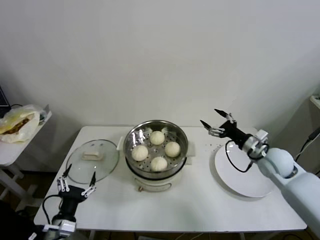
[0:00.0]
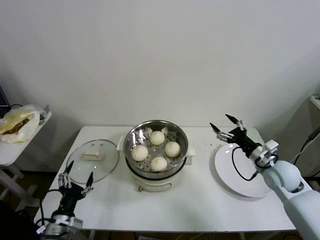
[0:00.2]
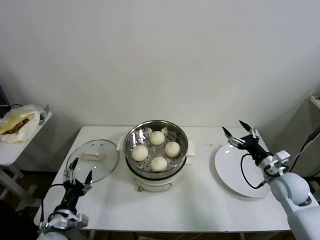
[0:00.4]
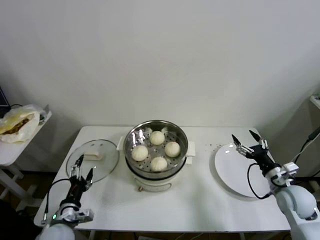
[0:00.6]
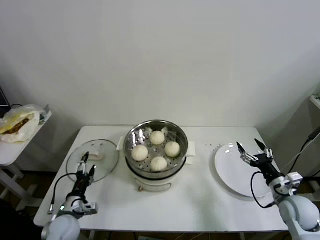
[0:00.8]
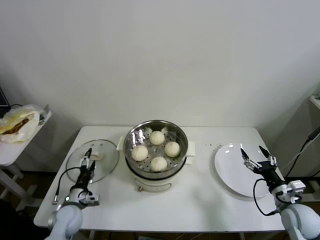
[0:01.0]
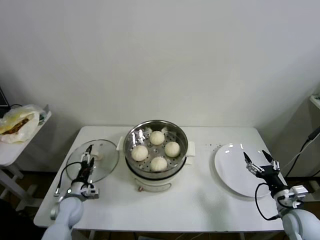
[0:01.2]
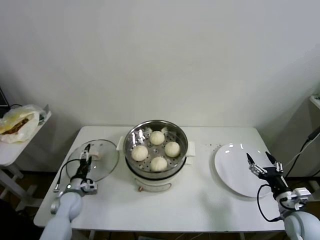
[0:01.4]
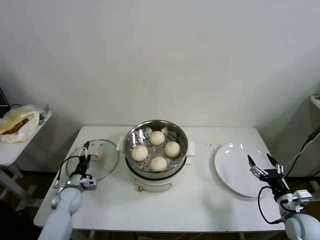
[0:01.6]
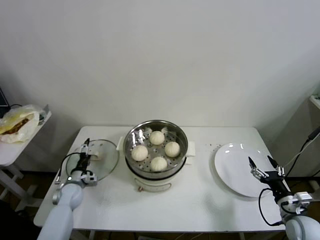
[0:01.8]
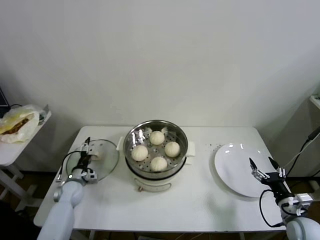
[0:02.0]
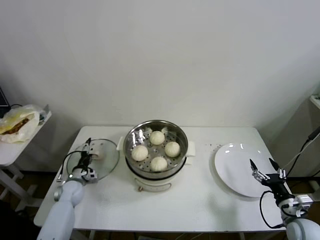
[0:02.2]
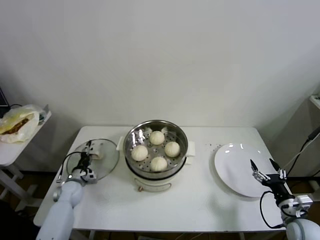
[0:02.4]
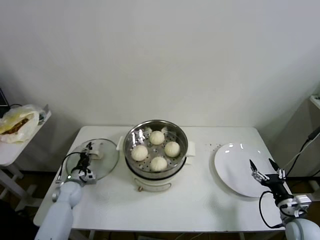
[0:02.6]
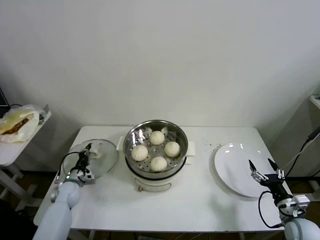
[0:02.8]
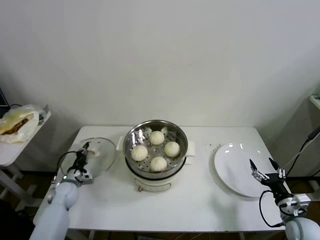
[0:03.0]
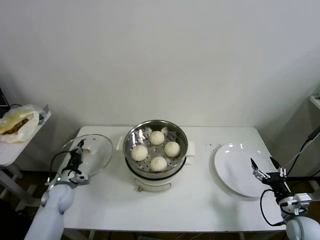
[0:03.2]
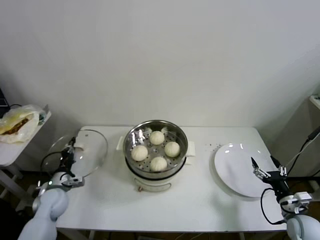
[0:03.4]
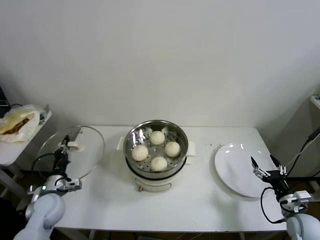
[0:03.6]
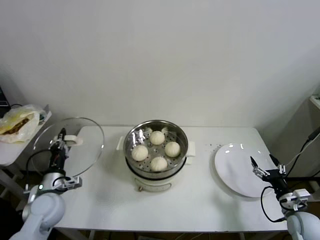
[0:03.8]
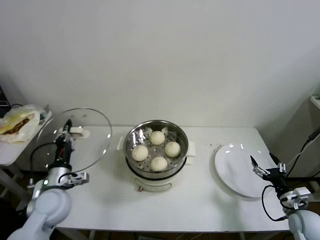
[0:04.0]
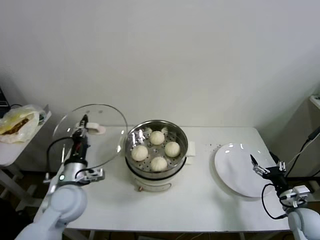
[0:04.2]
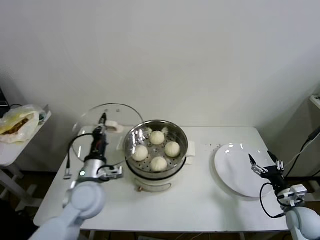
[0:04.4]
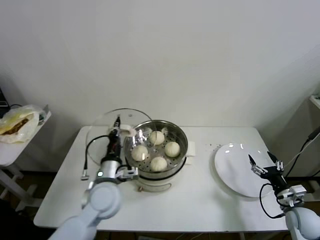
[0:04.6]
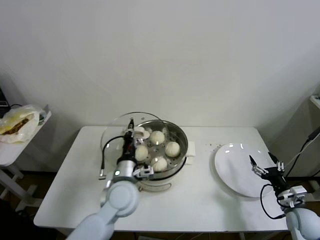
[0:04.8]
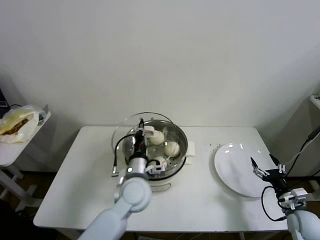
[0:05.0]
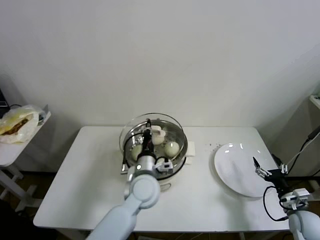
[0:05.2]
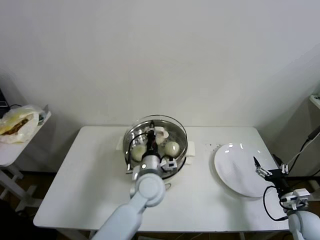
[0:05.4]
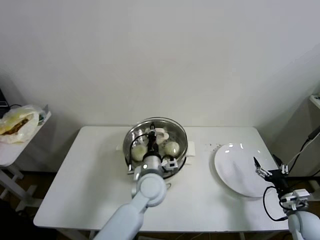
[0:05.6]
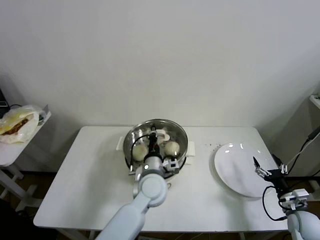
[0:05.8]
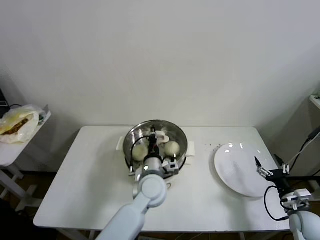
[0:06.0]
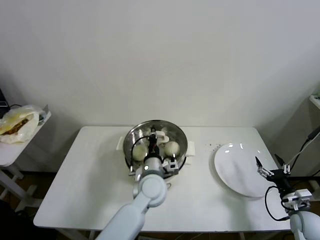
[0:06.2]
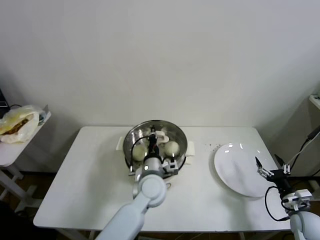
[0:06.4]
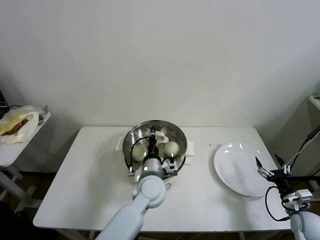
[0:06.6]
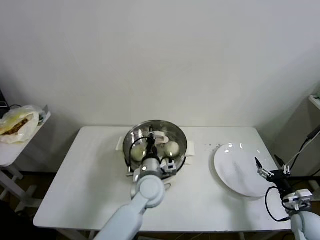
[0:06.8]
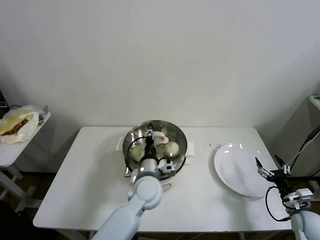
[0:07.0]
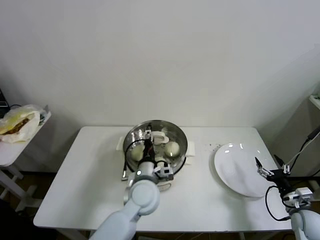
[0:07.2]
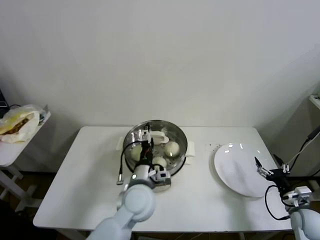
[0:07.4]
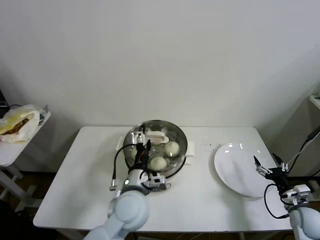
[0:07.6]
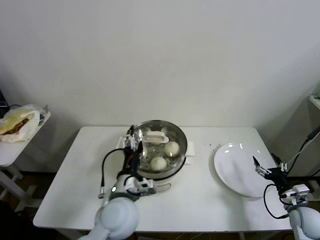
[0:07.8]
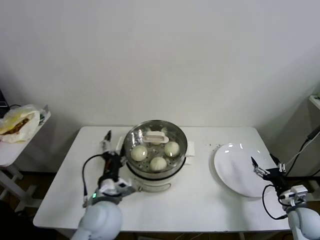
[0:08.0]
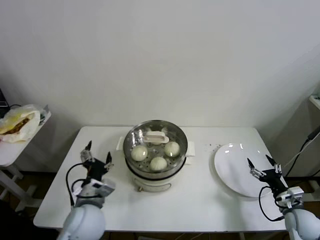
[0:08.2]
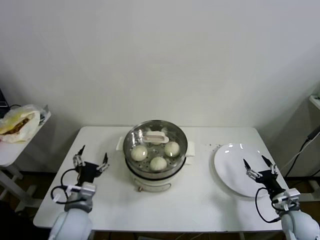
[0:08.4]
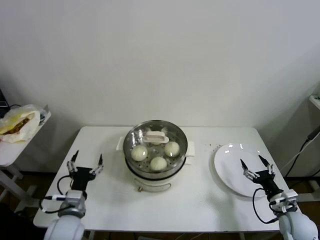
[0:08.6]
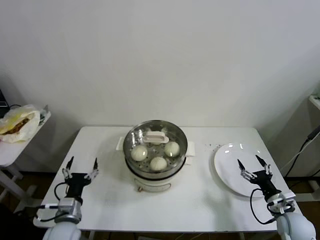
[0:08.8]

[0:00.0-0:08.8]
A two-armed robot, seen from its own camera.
Step, 0:00.0 to 0:02.8: Grasp the pot lid with left gripper.
Step, 0:03.0 to 0:06.6: Place the pot lid on the steamer with left gripper.
0:00.0 to 0:01.4: The right gripper moves backward and downward, some 20 cm; the left gripper heads forward and downward, covering approximately 20 cm.
0:01.4 to 0:03.0: The left gripper ends up some 5 cm from where it was, and closes up.
0:03.0 to 0:04.4: The left gripper is displaced upward, to the right and backward by roughly 30 cm.
0:04.4 to 0:05.8: The left gripper travels to the right by about 20 cm.
0:05.8 to 0:07.4: The left gripper opens up.
0:07.4 to 0:08.8: The left gripper is displaced to the left by about 25 cm.

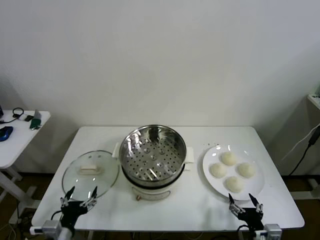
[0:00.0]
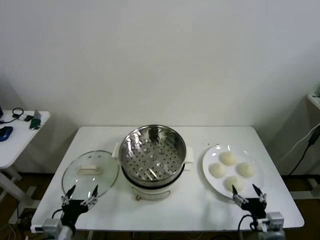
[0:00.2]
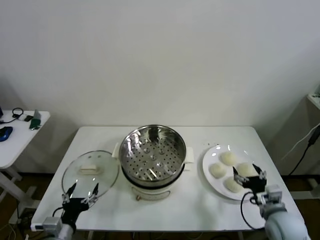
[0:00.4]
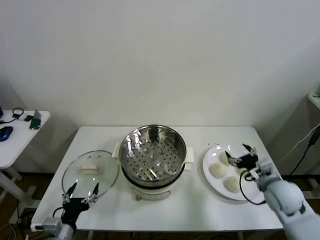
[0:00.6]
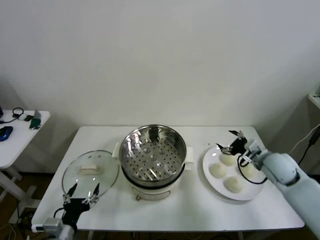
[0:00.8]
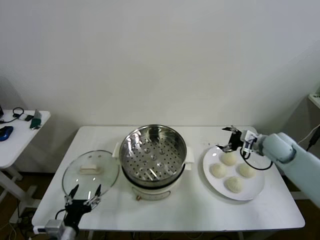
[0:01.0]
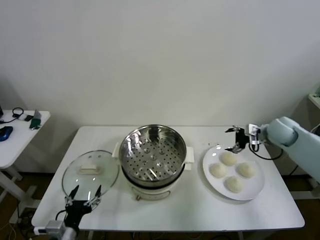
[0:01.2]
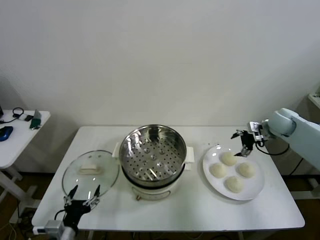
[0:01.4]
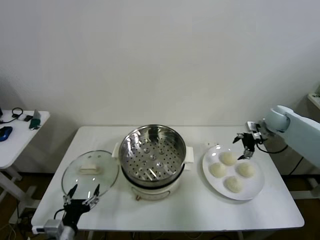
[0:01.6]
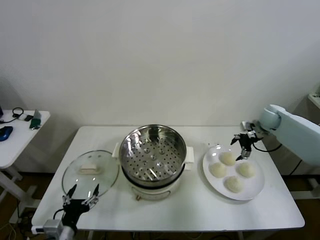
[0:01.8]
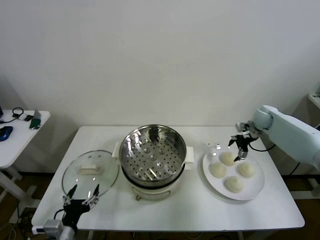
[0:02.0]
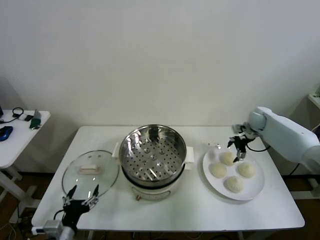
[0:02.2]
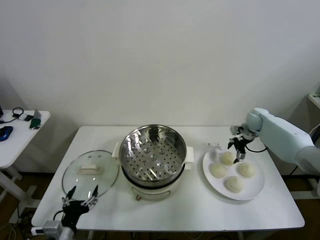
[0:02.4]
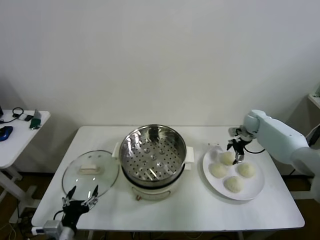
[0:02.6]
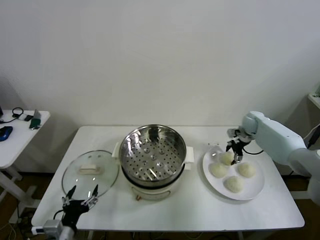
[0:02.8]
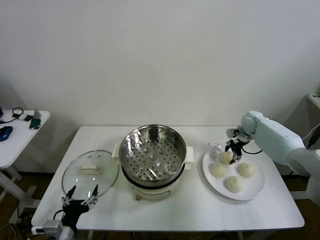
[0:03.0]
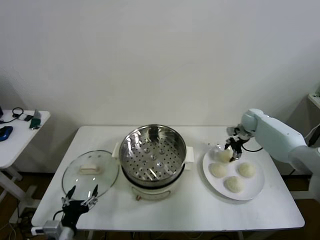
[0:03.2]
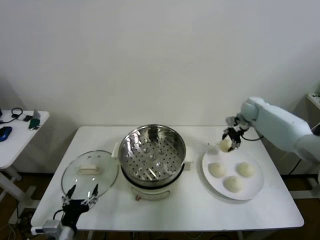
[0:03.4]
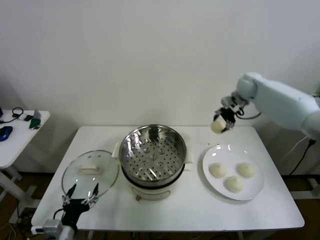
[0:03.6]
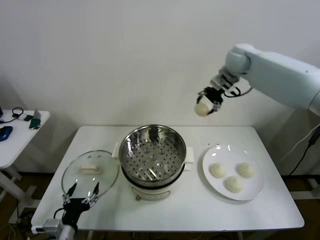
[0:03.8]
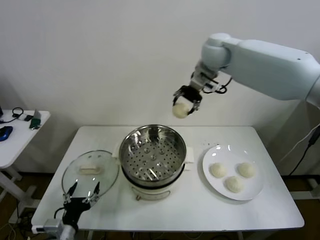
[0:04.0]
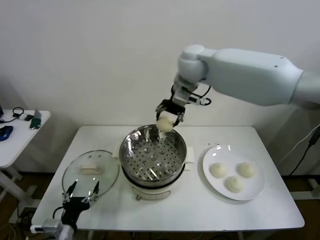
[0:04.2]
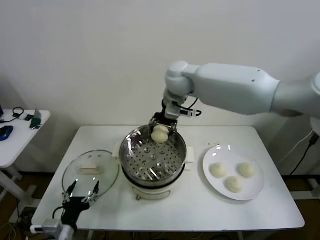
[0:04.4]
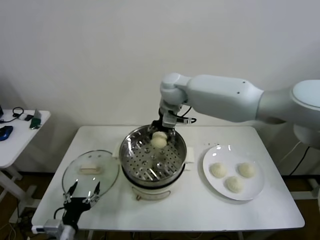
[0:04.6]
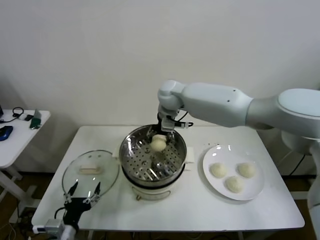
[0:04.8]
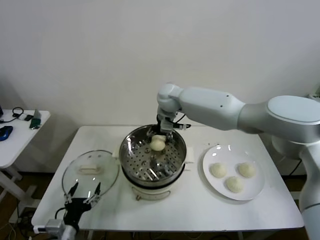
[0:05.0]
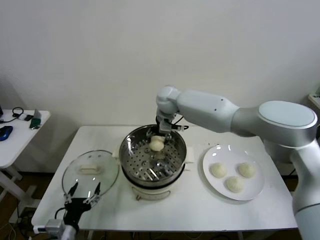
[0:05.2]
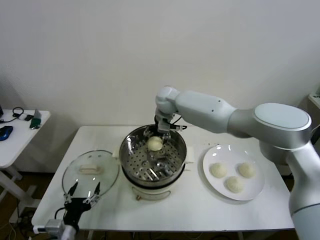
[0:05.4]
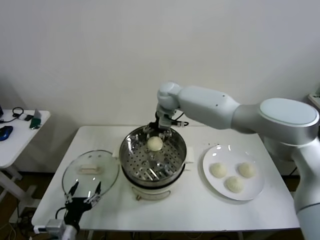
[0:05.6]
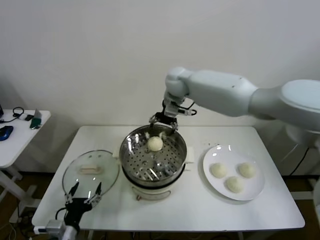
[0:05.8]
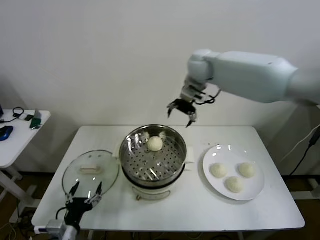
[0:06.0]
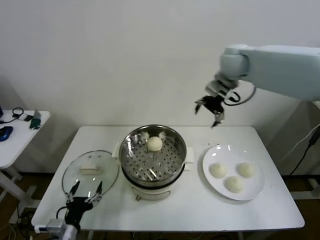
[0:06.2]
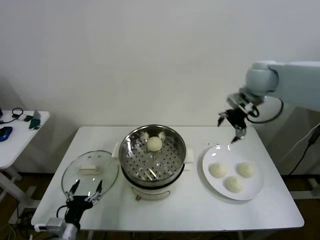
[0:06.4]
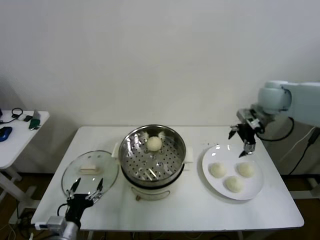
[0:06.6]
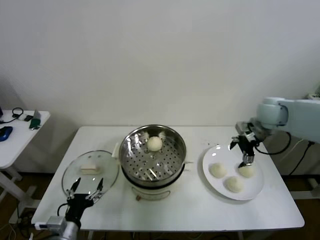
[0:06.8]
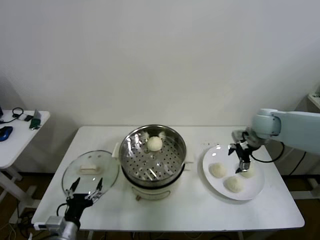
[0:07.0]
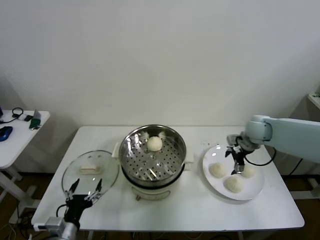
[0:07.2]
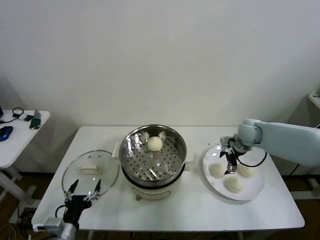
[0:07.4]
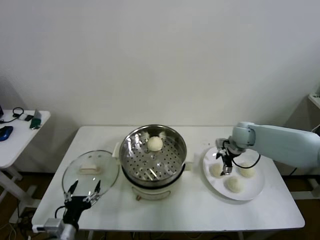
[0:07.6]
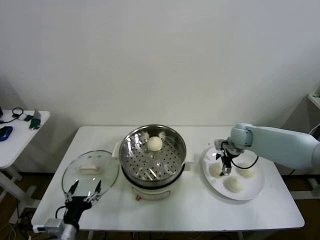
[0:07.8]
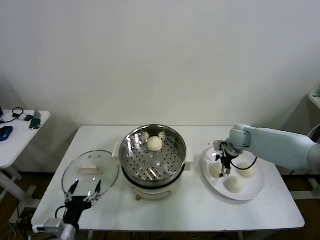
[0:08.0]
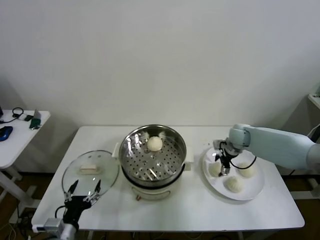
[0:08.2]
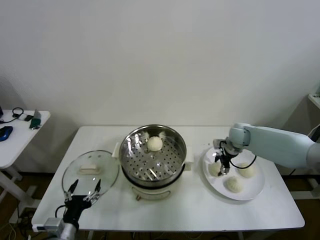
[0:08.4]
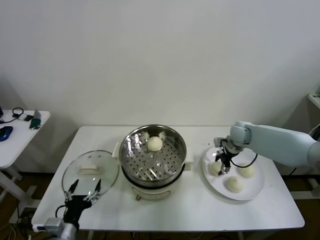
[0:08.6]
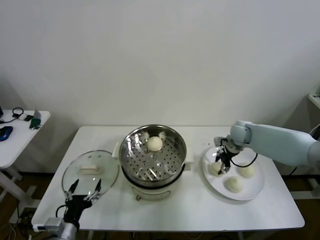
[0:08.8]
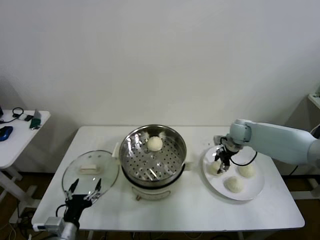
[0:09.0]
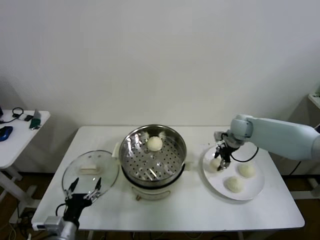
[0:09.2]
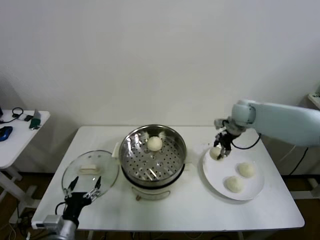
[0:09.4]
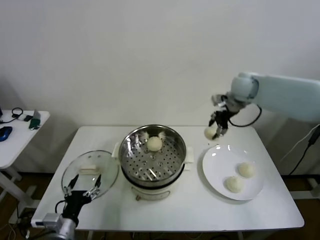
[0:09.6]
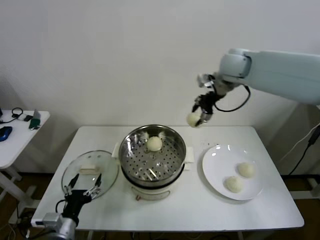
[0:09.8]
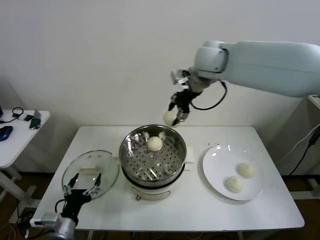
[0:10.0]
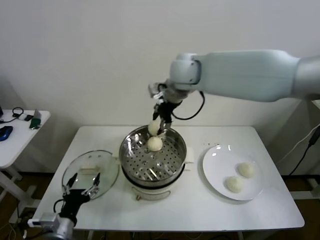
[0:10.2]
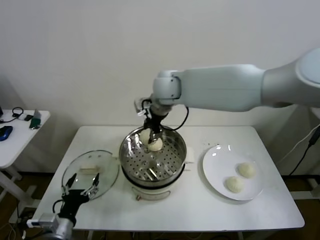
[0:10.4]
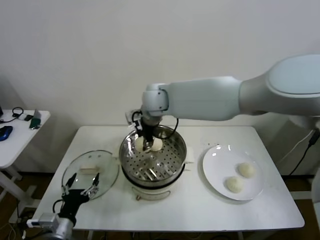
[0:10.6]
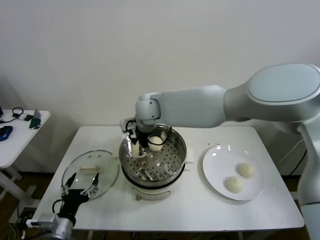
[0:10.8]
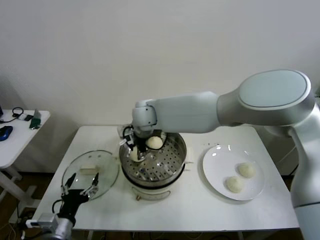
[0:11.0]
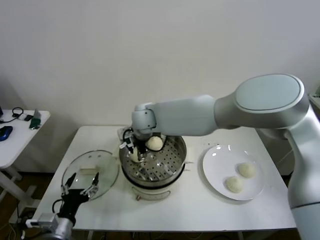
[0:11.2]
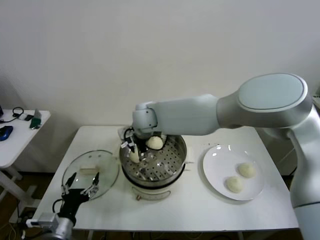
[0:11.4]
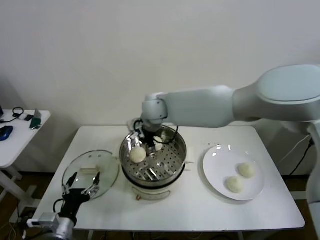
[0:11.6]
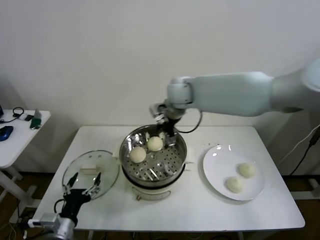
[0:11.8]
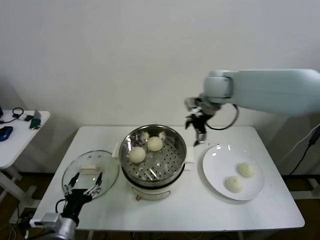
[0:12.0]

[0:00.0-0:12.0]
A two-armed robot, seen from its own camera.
Step, 0:00.0 to 0:03.0: Grasp the baozi in the plate with right gripper.
Step, 0:03.2 to 0:05.4: Place the baozi on the steamer with right gripper.
Step, 0:05.6 to 0:08.2: Grasp the baozi in the plate with right gripper.
Step, 0:08.4 to 0:11.2: Place the baozi on the steamer with right gripper.
0:01.6 to 0:03.0: The right gripper shifts approximately 10 cm downward and forward, and closes its fingers.
0:03.0 to 0:04.4: The right gripper travels to the left and upward by some 40 cm.
0:04.4 to 0:06.0: The right gripper is displaced to the right by about 10 cm, reaches approximately 10 cm downward, then returns, and opens.
0:06.0 to 0:07.6: The right gripper goes about 30 cm downward and to the right.
0:07.6 to 0:09.0: The right gripper closes its fingers.
0:09.0 to 0:10.4: The right gripper moves to the left and upward, some 35 cm.
0:10.4 to 0:12.0: The right gripper goes about 20 cm to the right, and opens its fingers.

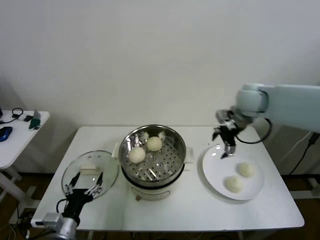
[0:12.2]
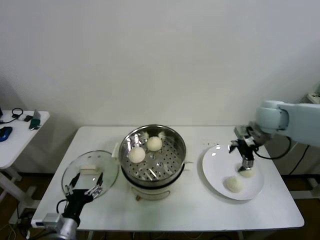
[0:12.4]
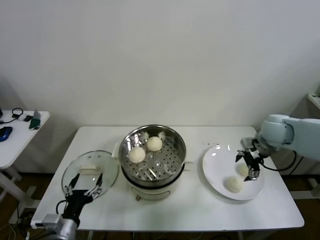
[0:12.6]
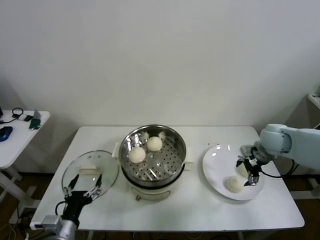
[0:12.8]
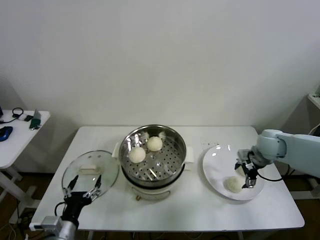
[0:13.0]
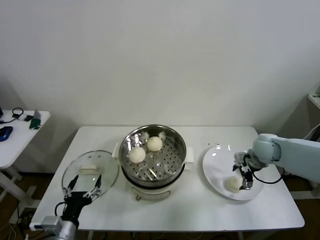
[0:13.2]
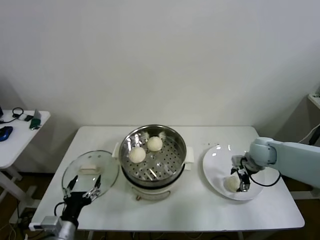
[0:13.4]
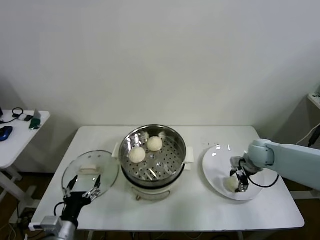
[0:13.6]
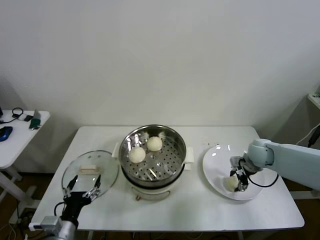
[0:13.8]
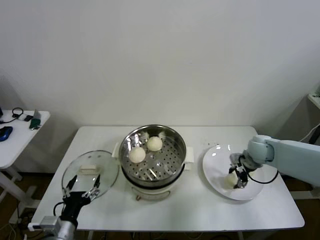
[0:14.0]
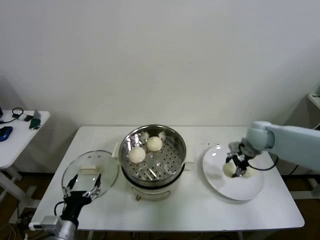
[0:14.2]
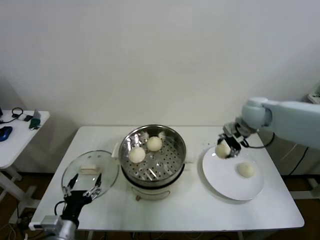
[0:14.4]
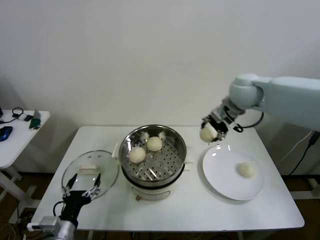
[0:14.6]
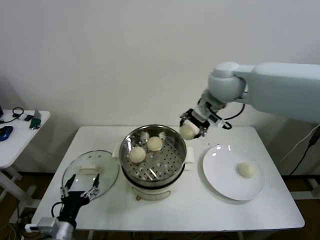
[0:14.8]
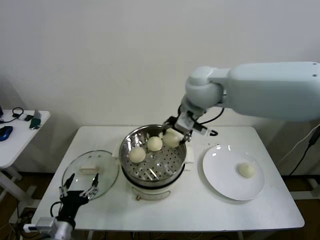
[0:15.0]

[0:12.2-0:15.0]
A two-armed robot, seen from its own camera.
Step, 0:12.2 to 0:13.6: Grasp the baozi in the plate with right gripper.
0:12.2 to 0:13.6: The right gripper is displaced downward by approximately 20 cm, and closes.
0:13.6 to 0:15.0: The right gripper goes approximately 40 cm upward and to the left.
